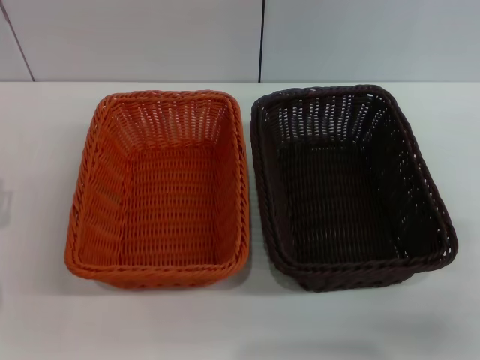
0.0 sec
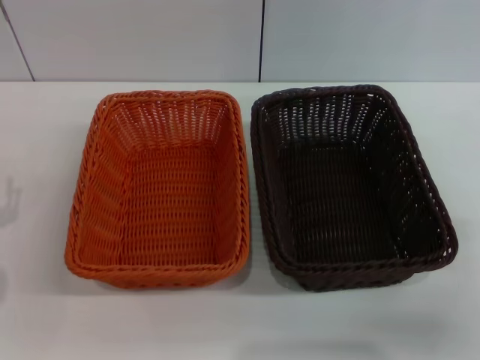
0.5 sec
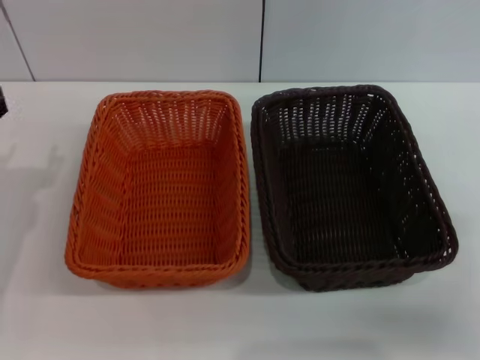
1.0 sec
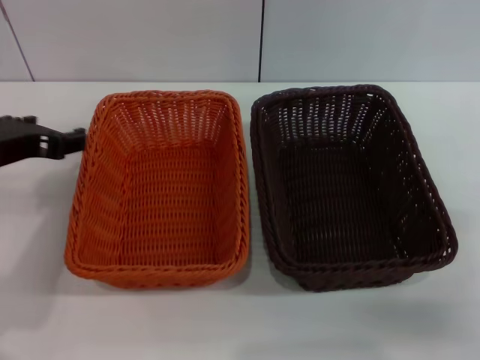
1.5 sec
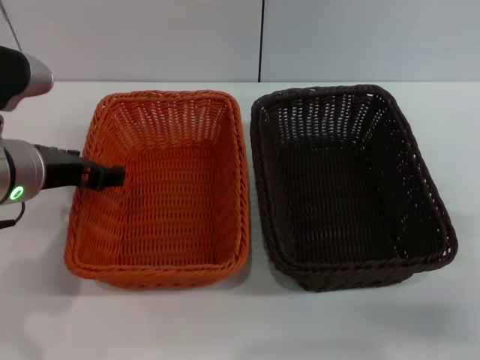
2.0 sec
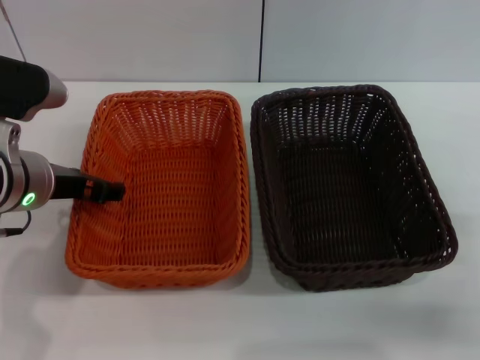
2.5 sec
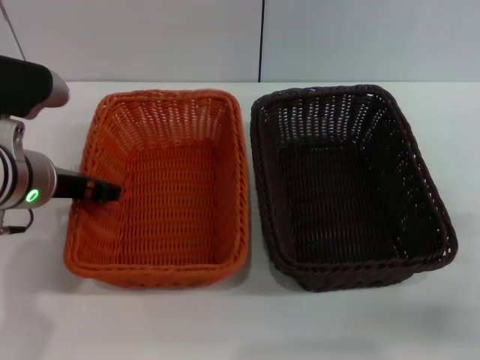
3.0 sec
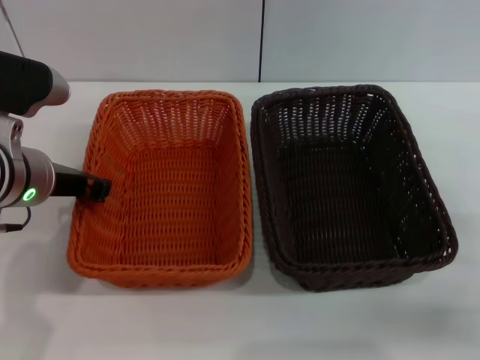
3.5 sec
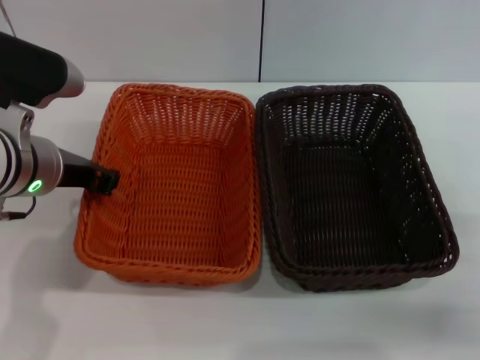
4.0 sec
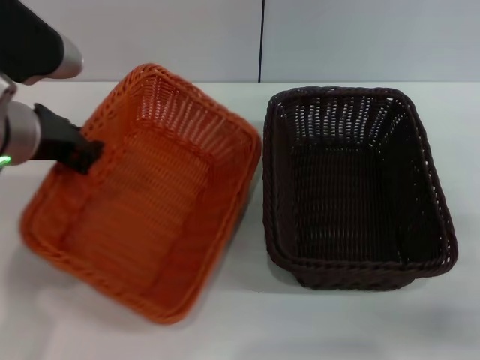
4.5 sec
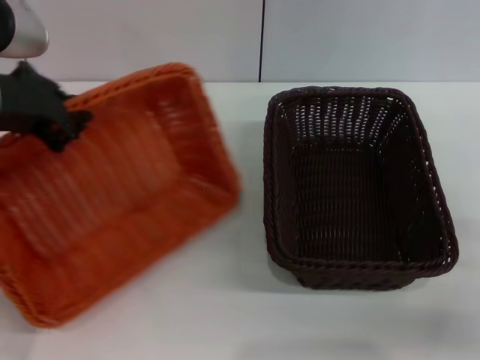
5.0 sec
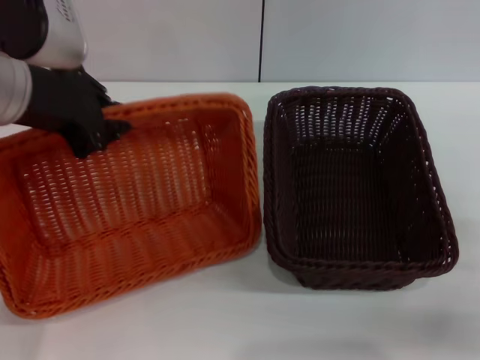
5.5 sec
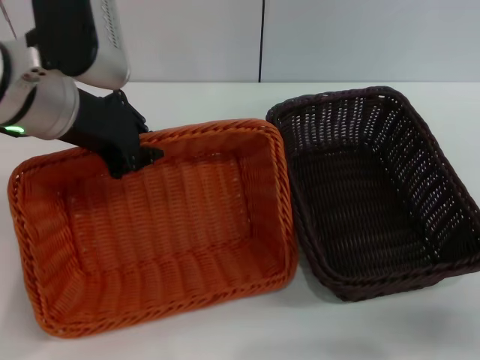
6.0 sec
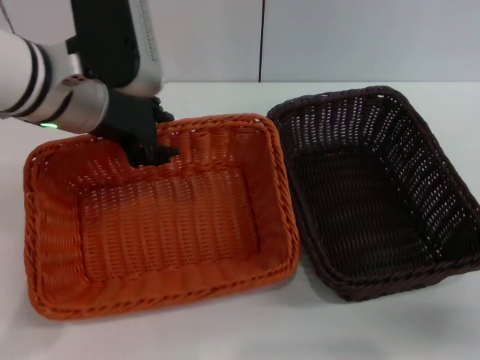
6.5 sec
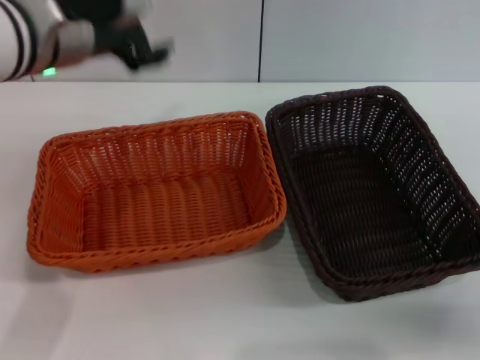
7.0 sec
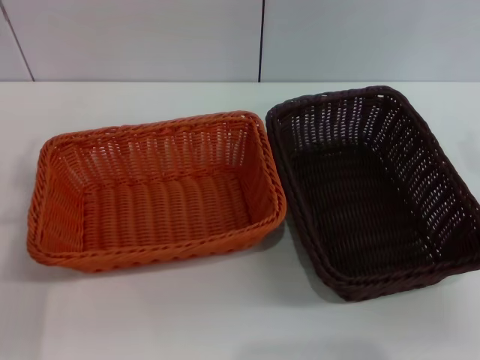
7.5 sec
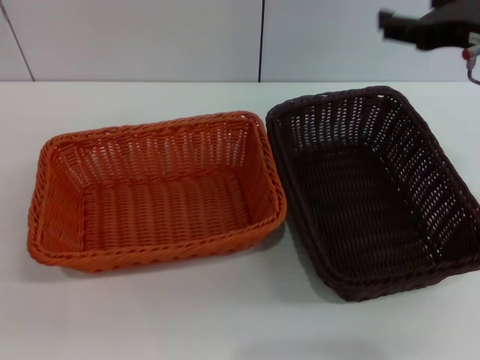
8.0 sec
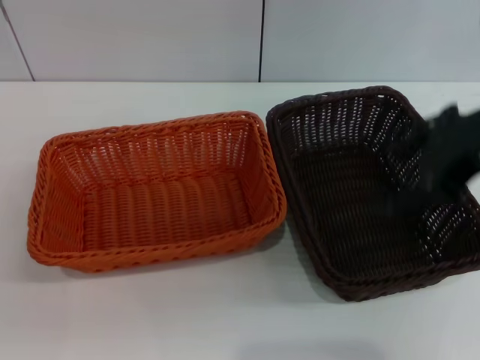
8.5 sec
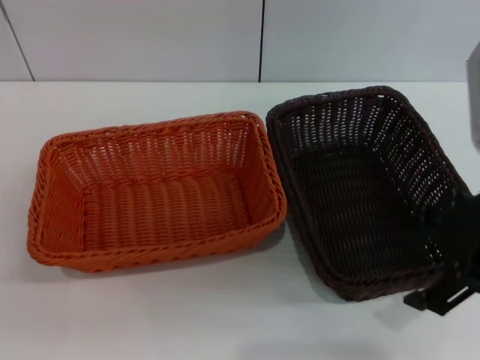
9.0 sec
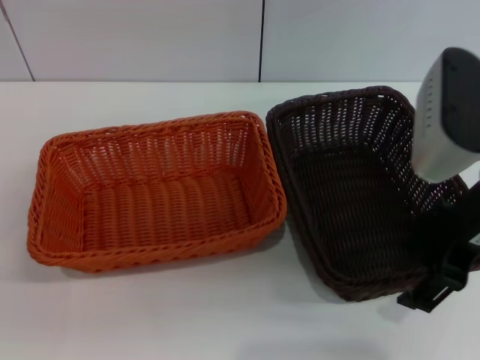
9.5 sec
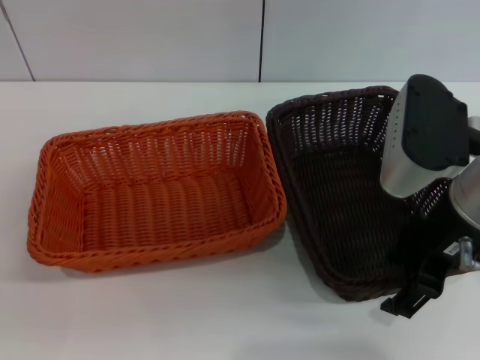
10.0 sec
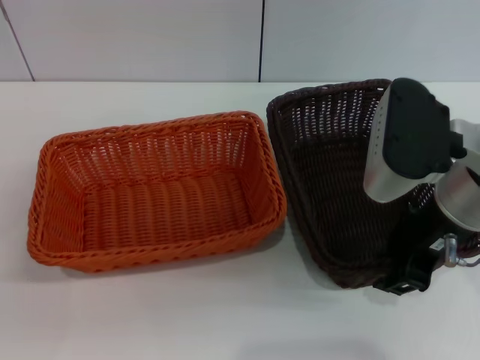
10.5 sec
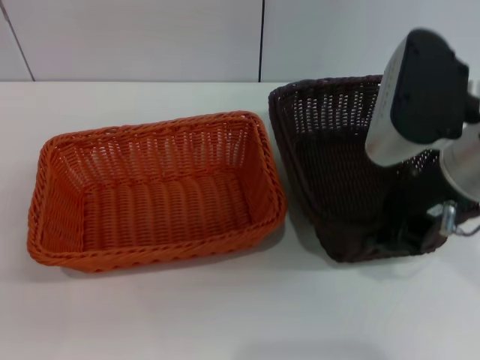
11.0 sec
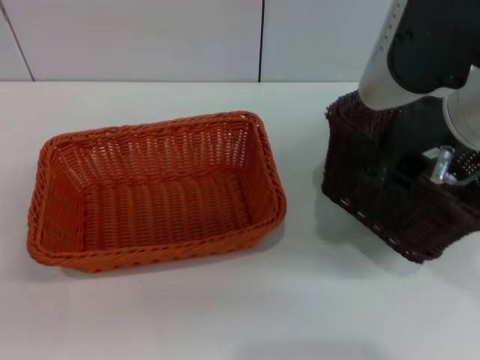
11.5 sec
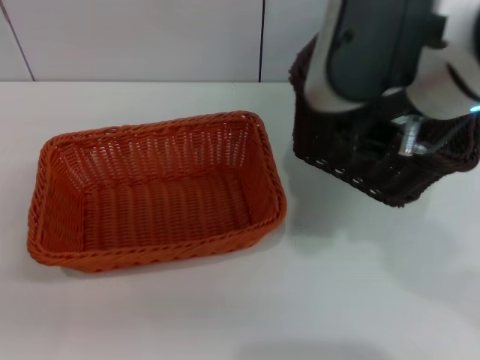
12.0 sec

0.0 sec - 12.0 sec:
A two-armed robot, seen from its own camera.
Step, 0.0 sec - 4.0 sec: Pick up the light basket with the left gripper.
Step, 4.5 sec - 6.5 sec: Place the light basket in the center of view with the left gripper.
Step, 7.0 sec - 11.0 sec: Pick up the dark basket with the right gripper.
0.0 sec - 2.0 sec: The left gripper goes approximately 20 cm upward, to the right and forward.
2.0 sec - 4.0 sec: The left gripper closes up.
4.0 sec - 6.0 sec: The left gripper heads upward, covering some 5 cm.
6.0 sec - 8.0 sec: The left gripper travels downward, backward and to the left by some 25 cm, and opens its fingers, while the right gripper heads upward, forward and to the left, covering roughly 25 cm.
8.0 sec - 10.0 sec: The right gripper moves downward, some 5 cm.
10.0 sec - 12.0 sec: The right gripper travels upward and to the left by some 10 cm, and closes its fingers.

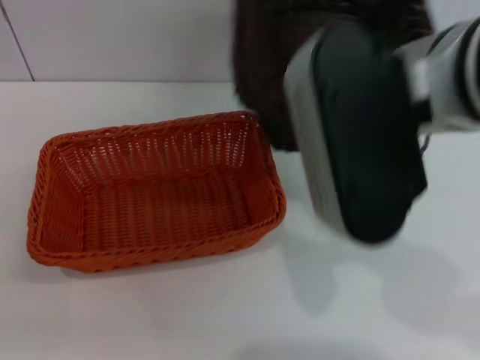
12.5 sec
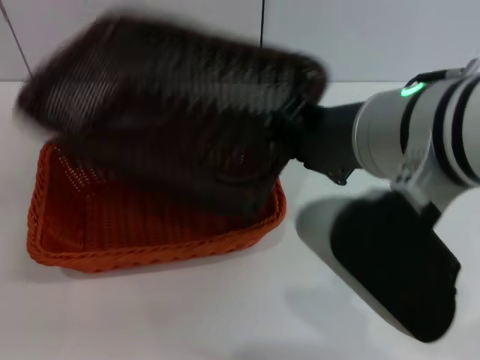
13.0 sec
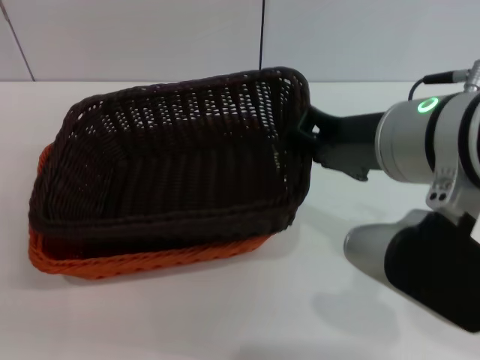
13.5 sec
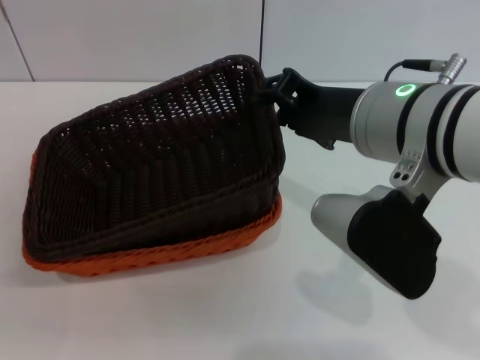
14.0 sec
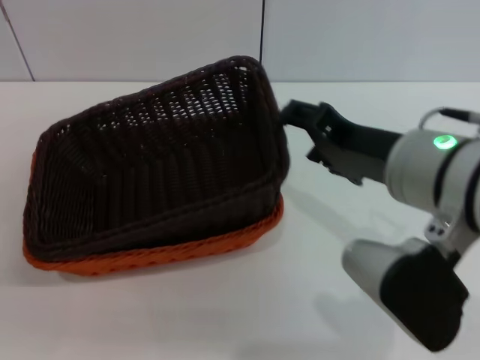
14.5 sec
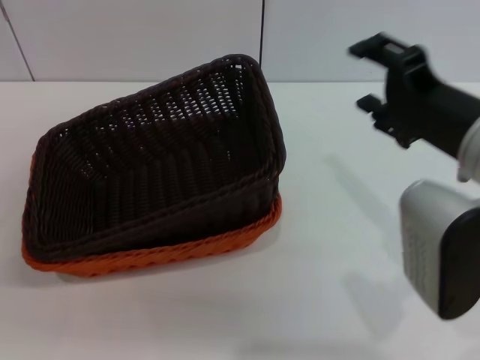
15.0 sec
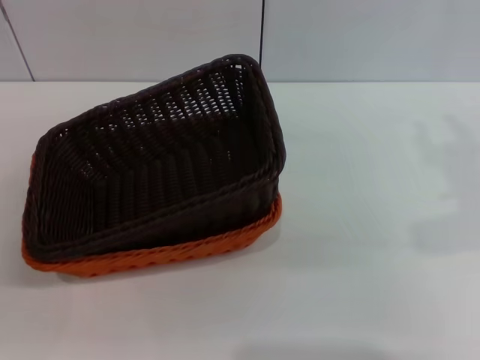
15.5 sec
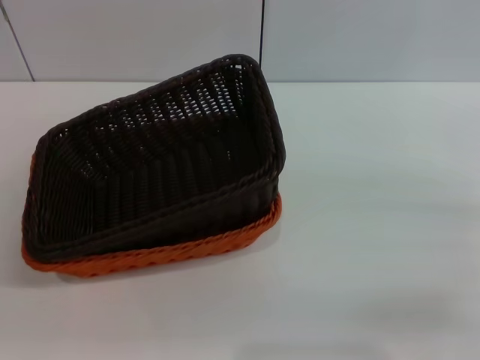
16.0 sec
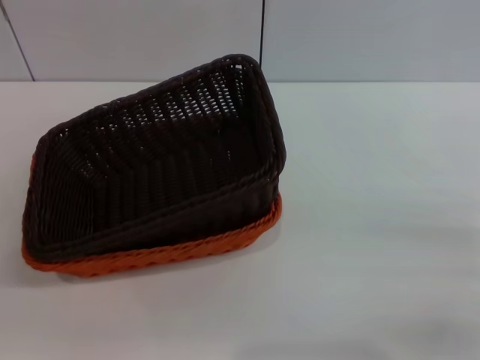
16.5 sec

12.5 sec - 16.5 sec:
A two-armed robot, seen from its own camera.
Step, 12.5 sec - 14.0 sec: Place the dark basket on the light basket with the right gripper.
12.5 sec - 14.5 sec: The right gripper moves downward, approximately 10 cm, and opens.
14.5 sec - 16.5 sec: The right gripper goes some 25 cm to the right and downward.
